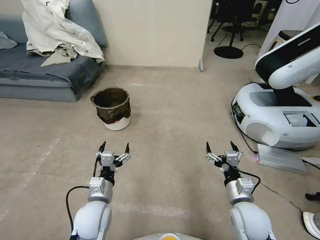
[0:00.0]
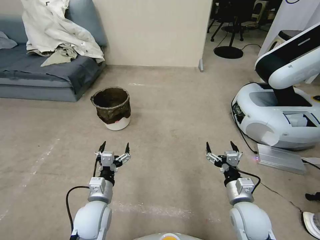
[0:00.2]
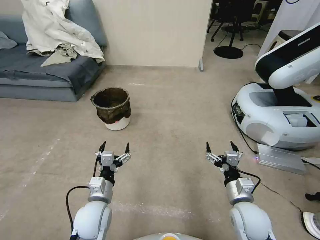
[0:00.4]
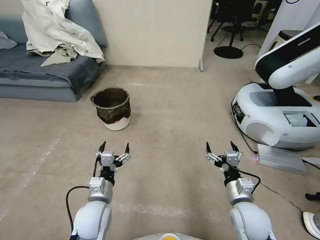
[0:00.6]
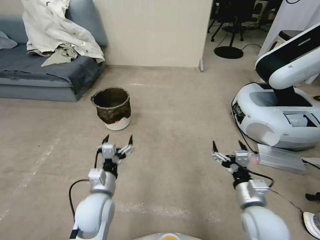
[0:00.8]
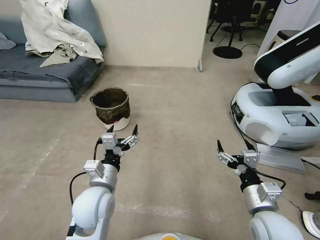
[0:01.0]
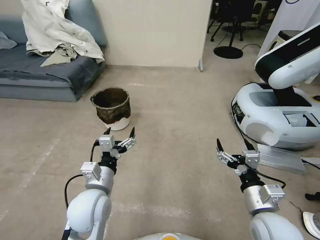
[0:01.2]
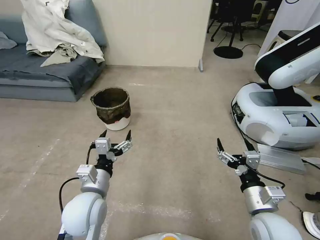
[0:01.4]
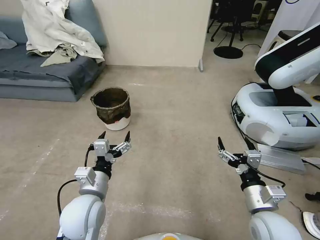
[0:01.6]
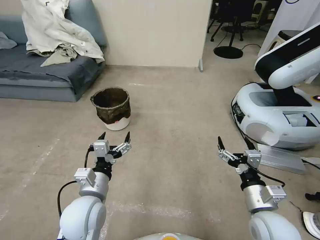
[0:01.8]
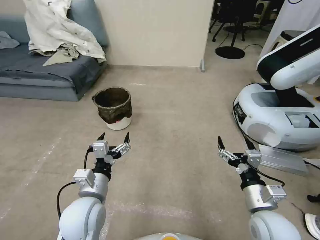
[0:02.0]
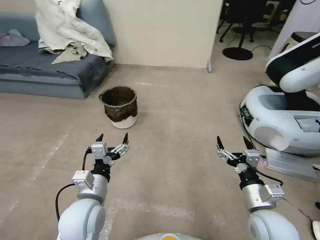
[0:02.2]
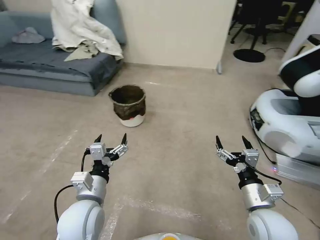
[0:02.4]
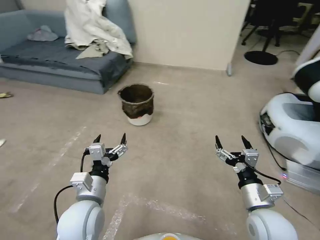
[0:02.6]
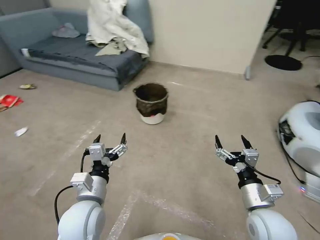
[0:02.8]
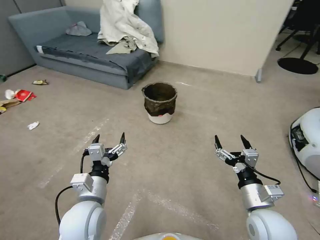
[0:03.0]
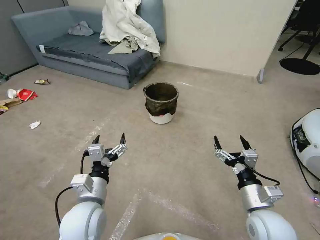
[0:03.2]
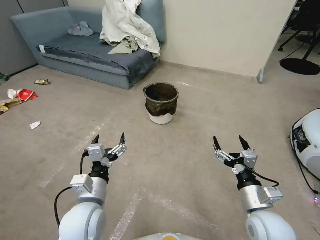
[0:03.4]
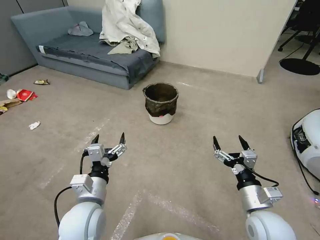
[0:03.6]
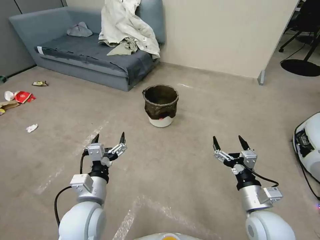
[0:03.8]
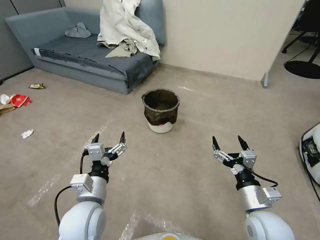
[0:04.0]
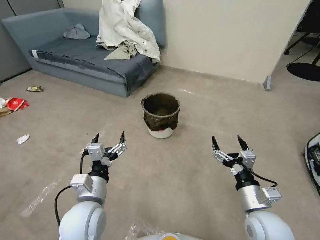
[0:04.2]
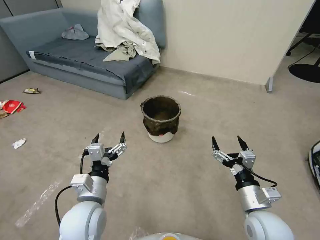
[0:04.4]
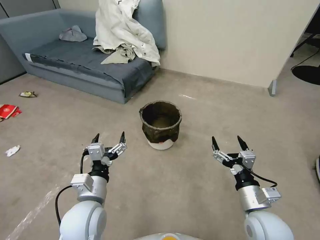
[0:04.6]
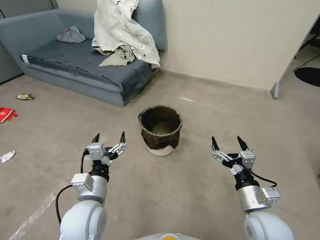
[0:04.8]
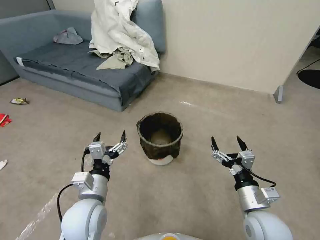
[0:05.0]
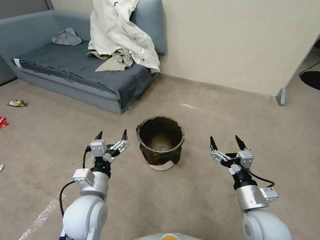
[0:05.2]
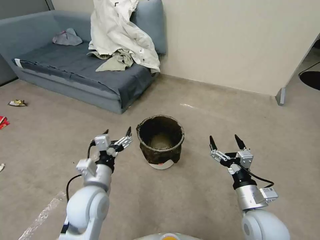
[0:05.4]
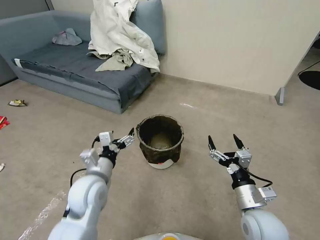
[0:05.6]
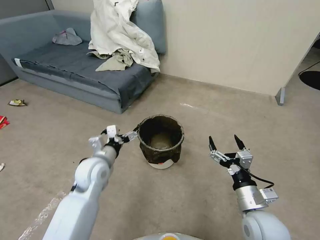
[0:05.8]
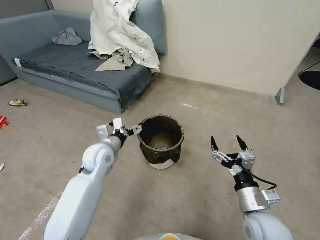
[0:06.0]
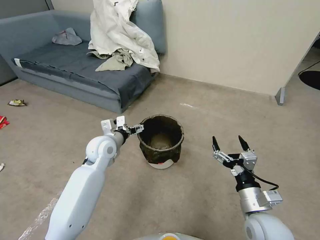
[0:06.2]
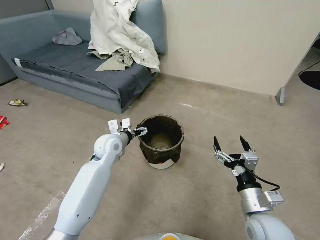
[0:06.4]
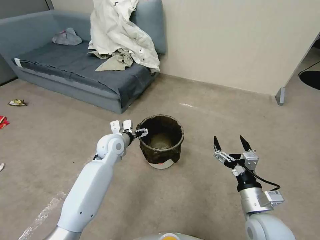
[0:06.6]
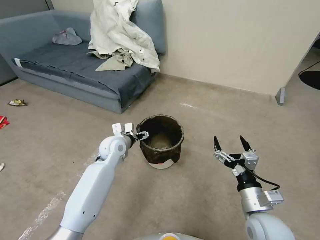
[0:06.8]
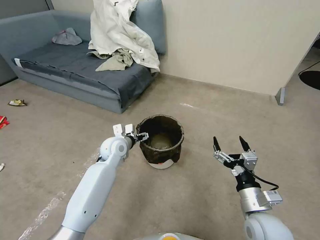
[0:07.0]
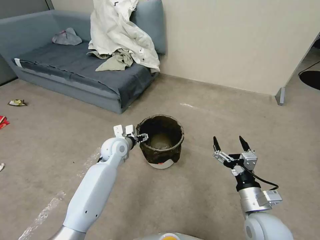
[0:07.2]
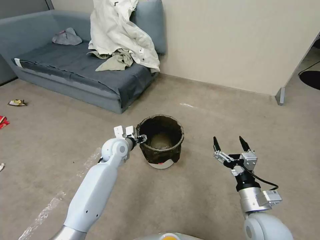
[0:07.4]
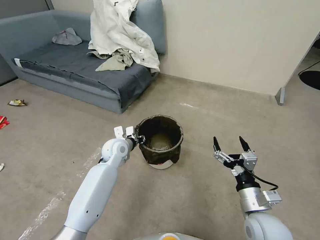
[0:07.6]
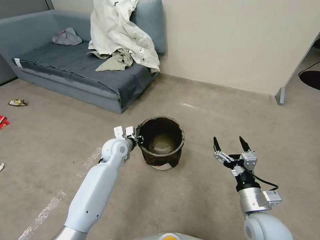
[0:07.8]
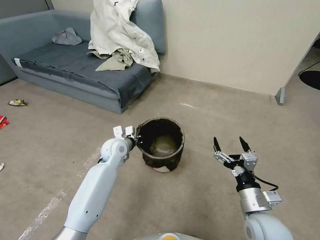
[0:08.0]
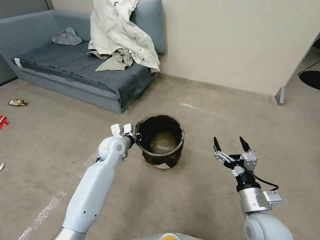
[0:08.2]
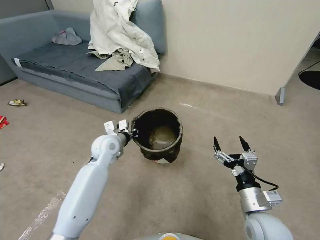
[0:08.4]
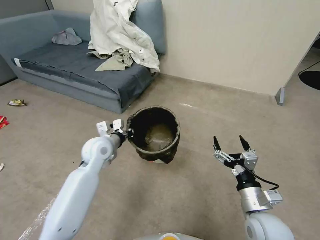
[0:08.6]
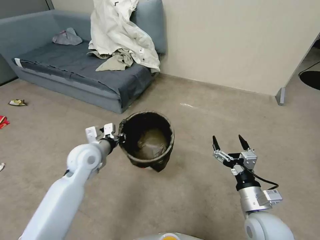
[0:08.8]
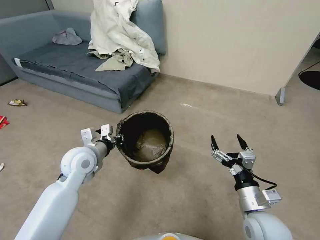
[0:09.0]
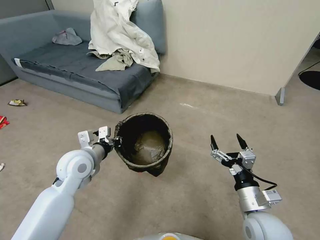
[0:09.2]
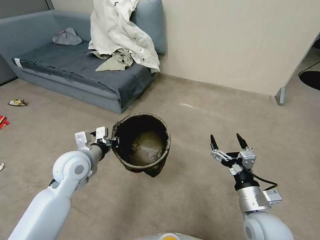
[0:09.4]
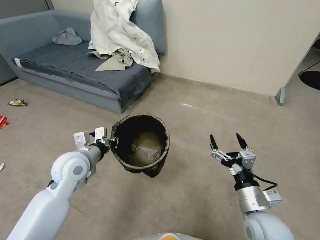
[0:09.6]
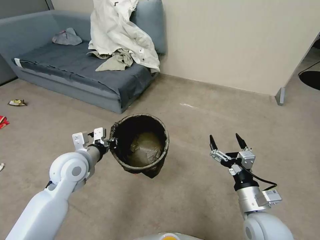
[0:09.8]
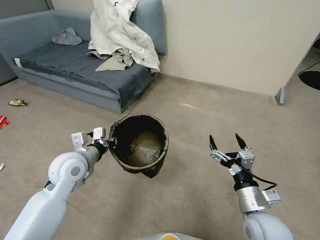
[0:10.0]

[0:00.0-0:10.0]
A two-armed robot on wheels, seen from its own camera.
Task of the whole recording: Pick up the trash can from the floor.
0:04.2 to 0:05.8: The left gripper is displaced forward by approximately 15 cm.
0:05.8 to 0:07.2: The left gripper shifts approximately 10 cm forward.
0:07.2 to 0:08.6: The left gripper goes some 5 cm upward, and closes up.
0:08.6 to 0:10.0: The left gripper goes some 5 cm backward.

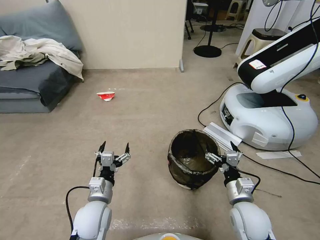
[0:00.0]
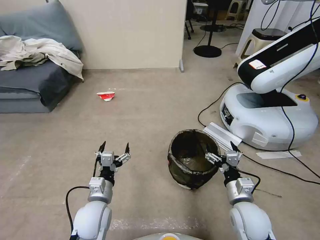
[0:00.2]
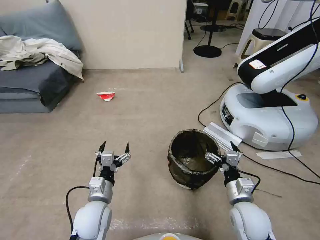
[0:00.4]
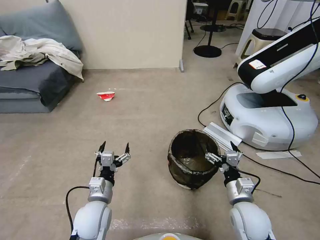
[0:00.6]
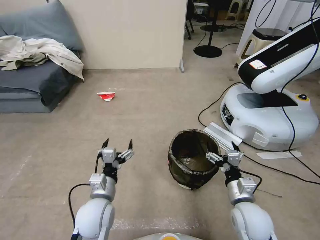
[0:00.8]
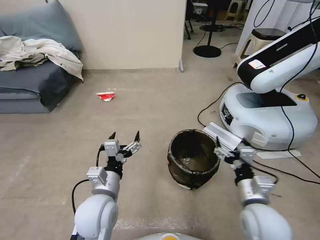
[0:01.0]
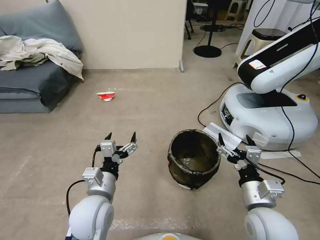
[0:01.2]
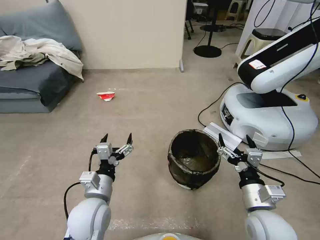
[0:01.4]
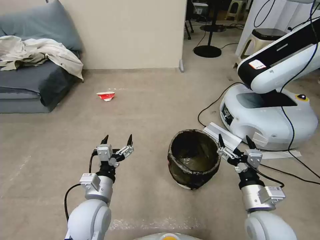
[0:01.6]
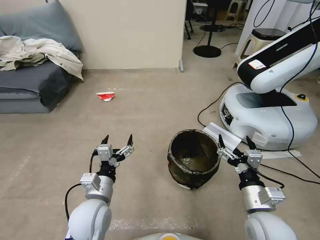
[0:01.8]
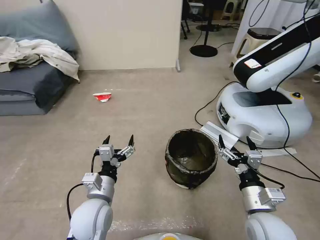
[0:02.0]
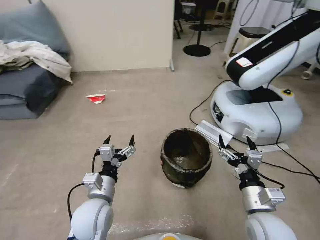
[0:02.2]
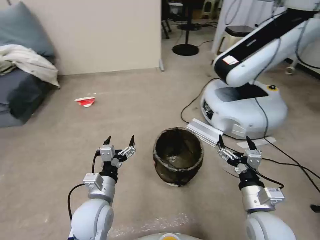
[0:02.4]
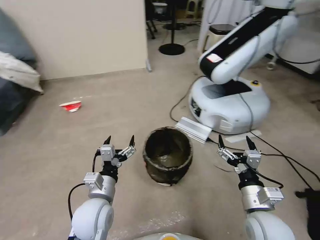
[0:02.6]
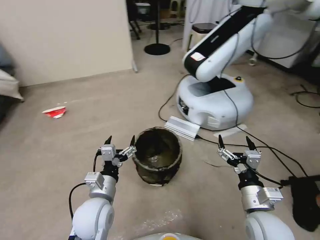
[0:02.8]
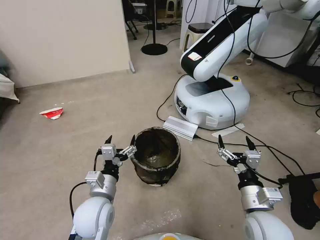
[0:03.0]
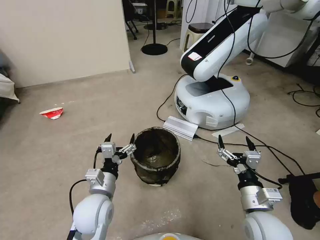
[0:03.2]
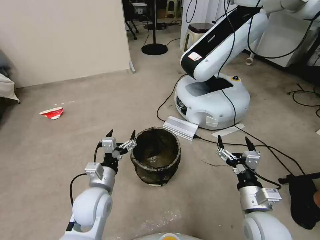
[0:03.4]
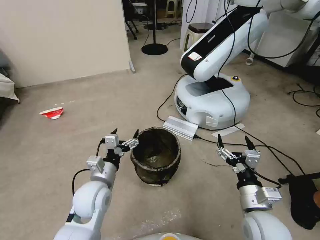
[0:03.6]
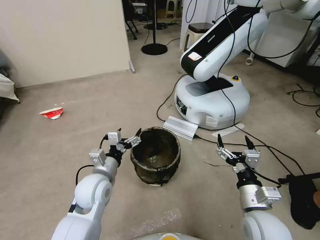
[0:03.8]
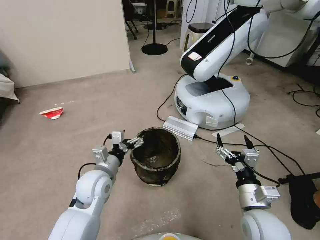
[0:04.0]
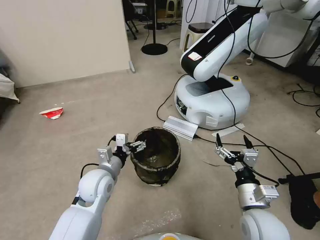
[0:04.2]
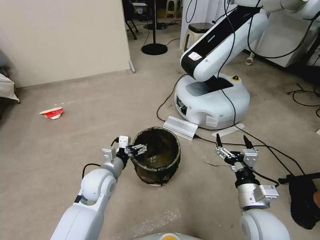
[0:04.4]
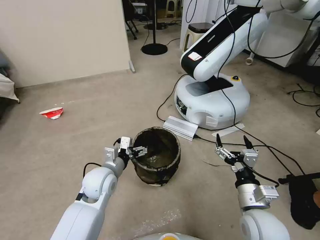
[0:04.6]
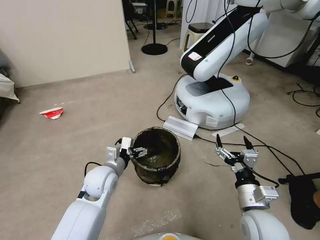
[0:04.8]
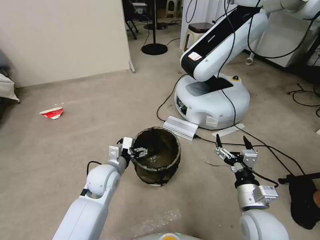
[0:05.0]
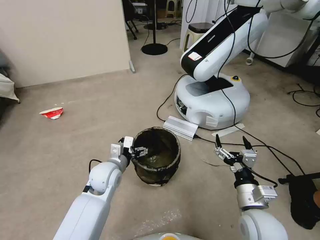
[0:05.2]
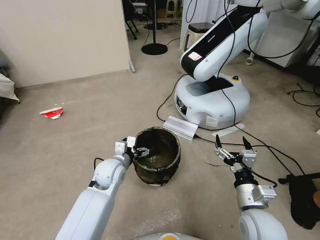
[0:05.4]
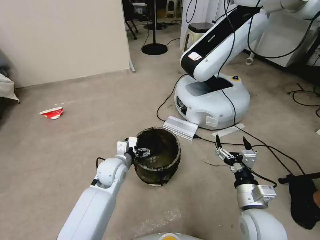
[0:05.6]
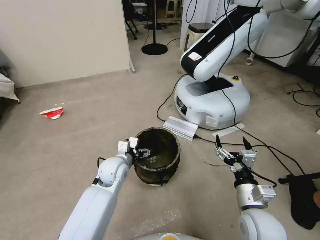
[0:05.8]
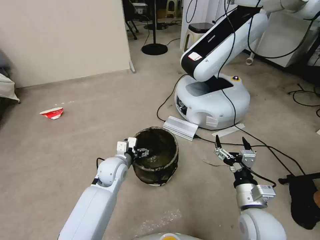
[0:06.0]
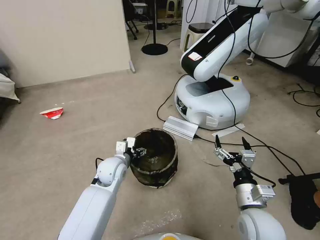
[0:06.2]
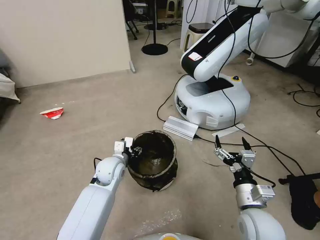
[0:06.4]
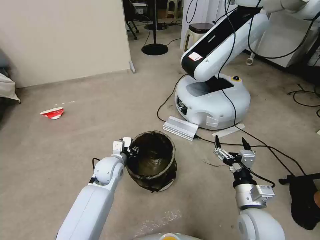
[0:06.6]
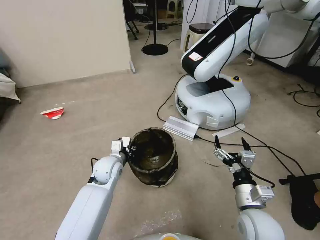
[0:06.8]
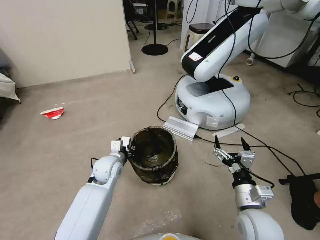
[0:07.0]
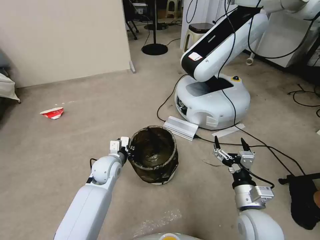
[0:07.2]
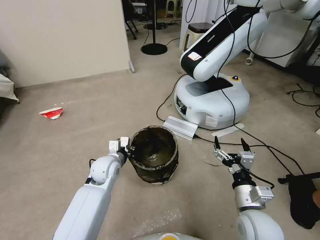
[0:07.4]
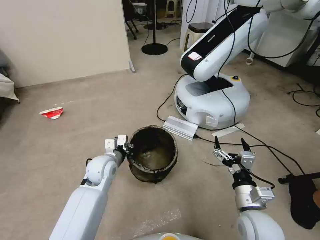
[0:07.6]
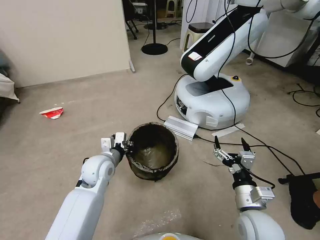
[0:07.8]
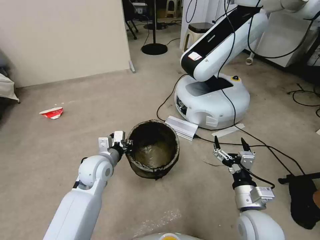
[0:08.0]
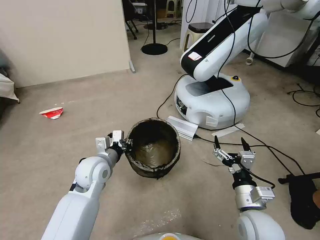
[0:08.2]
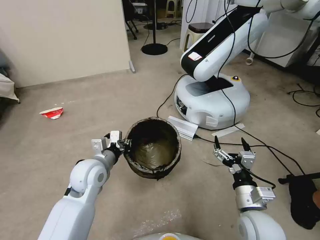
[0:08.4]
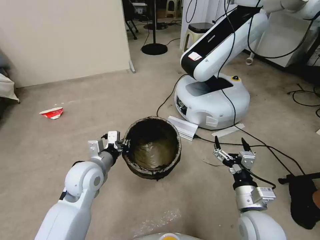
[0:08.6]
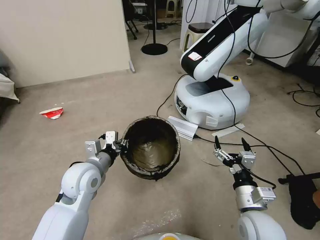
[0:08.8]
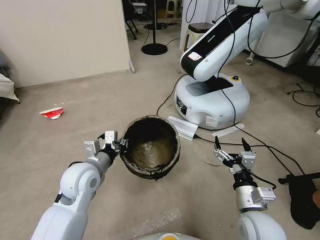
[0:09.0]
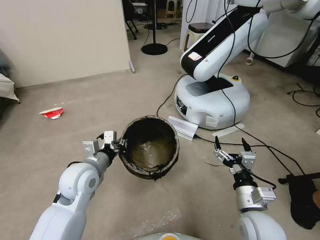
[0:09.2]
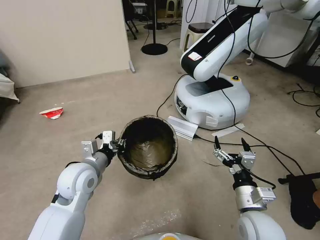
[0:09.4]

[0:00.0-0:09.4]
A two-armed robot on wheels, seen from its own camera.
Task of the whole recording: Pick up the trash can from the floor.
0:03.2 to 0:04.8: The left gripper moves forward, roughly 10 cm.
0:04.8 to 0:06.2: The left gripper shifts by about 5 cm.
0:06.2 to 0:07.8: The left gripper shifts by roughly 5 cm, and closes.
0:07.8 to 0:09.4: The left gripper travels backward and upward by about 10 cm.

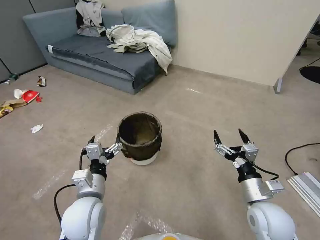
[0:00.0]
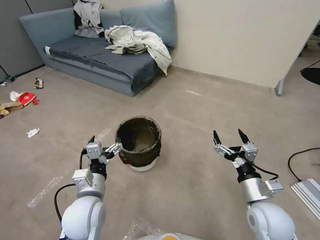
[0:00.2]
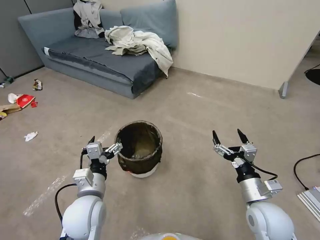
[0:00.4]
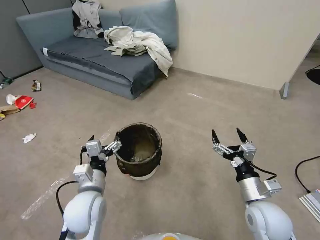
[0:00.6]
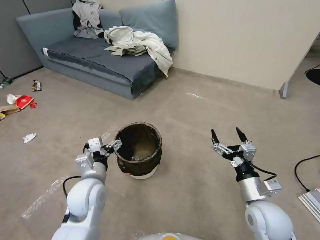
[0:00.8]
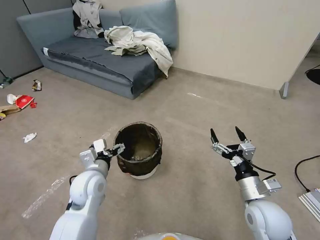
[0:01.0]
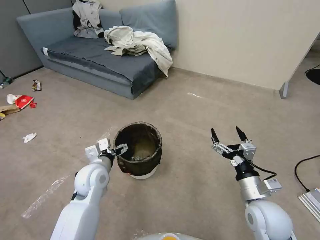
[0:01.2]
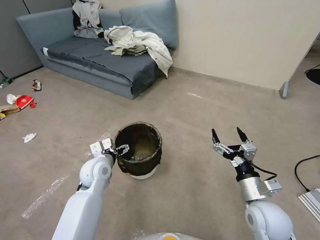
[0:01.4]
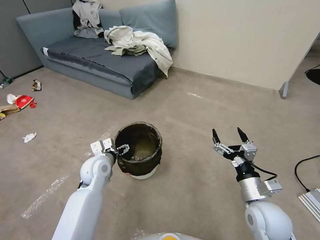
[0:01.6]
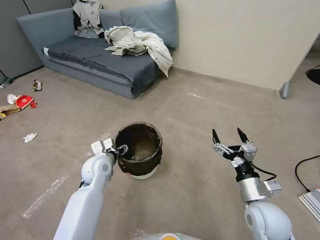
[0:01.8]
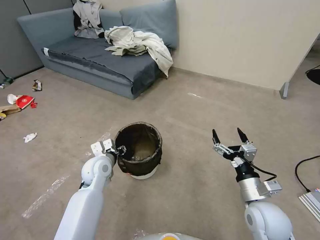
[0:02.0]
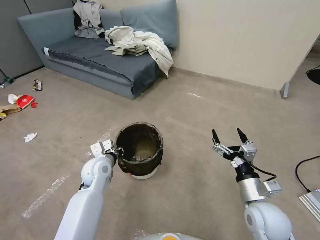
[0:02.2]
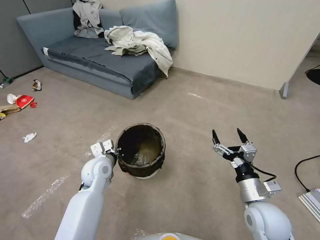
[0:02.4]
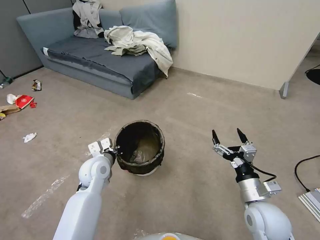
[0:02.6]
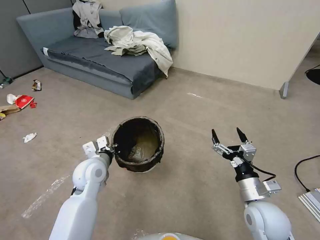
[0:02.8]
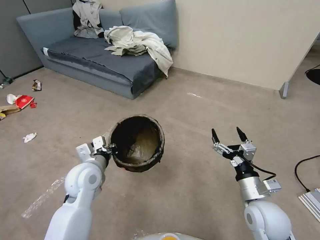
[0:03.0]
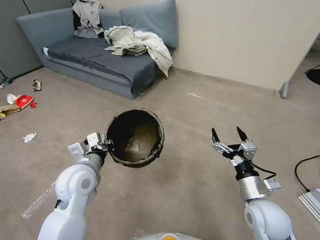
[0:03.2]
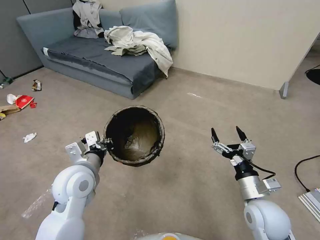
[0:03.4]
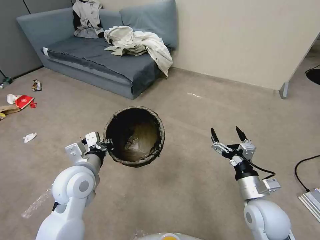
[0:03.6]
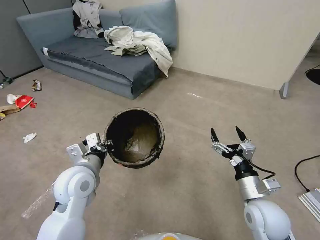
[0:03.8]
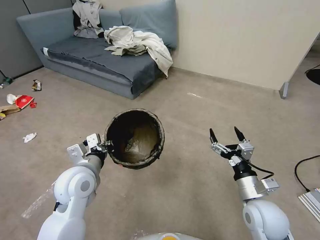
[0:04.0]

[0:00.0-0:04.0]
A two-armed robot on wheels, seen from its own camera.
Task of the whole recording: Pick up the trash can from the floor.
0:00.0 to 0:01.4: The left gripper goes approximately 15 cm forward.
0:01.4 to 0:02.6: The left gripper closes.
0:02.6 to 0:04.0: The left gripper heads upward and backward, covering about 10 cm.
